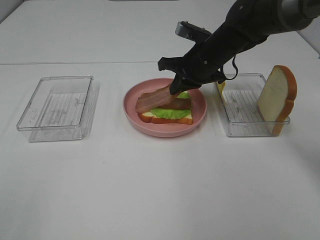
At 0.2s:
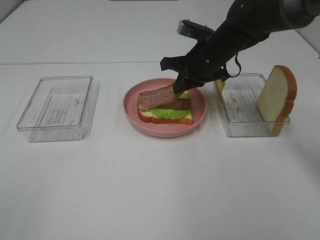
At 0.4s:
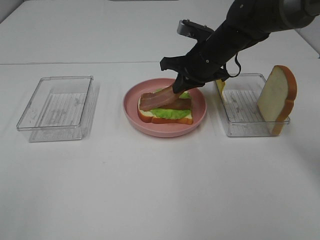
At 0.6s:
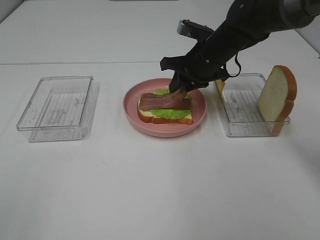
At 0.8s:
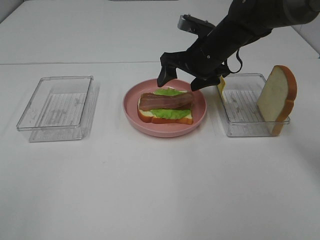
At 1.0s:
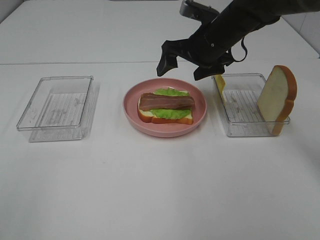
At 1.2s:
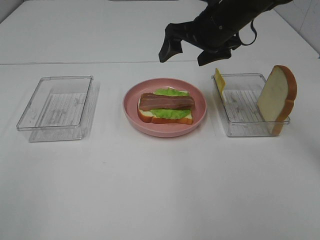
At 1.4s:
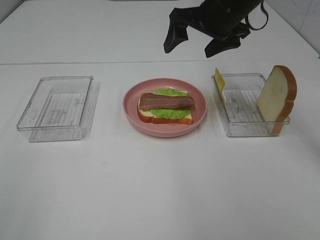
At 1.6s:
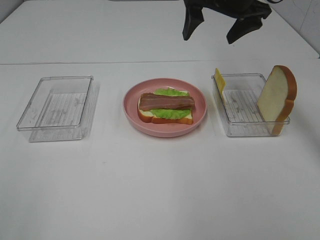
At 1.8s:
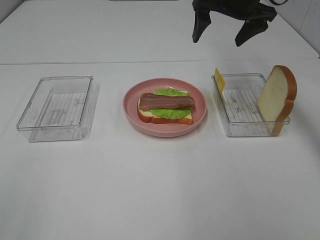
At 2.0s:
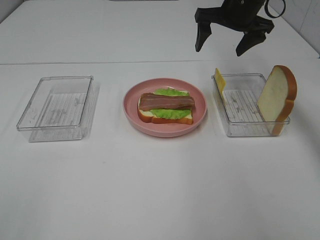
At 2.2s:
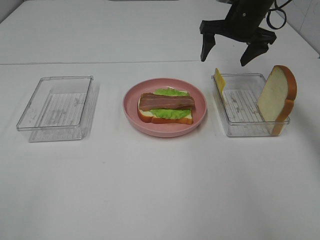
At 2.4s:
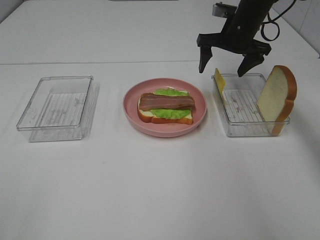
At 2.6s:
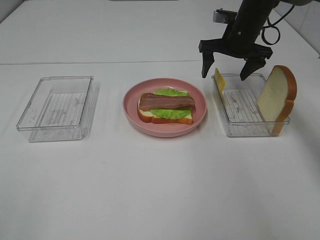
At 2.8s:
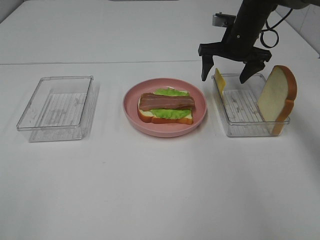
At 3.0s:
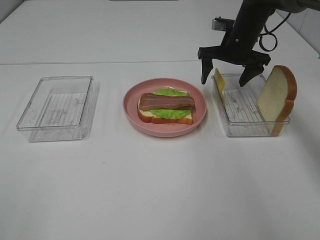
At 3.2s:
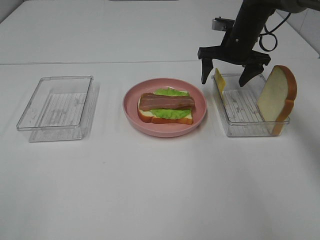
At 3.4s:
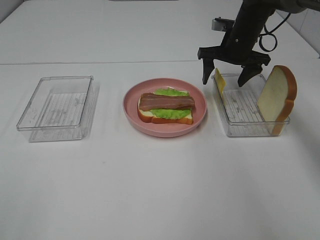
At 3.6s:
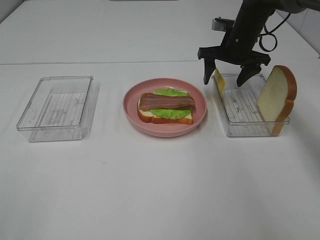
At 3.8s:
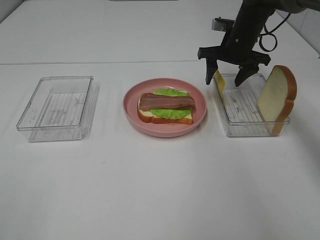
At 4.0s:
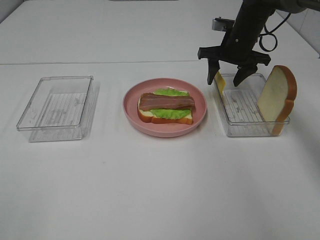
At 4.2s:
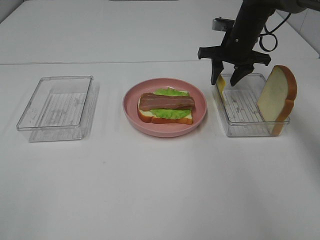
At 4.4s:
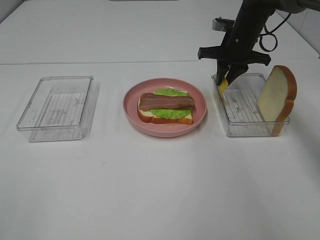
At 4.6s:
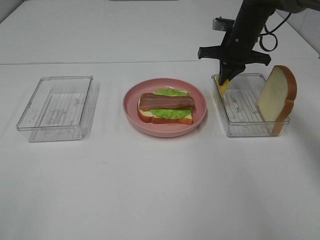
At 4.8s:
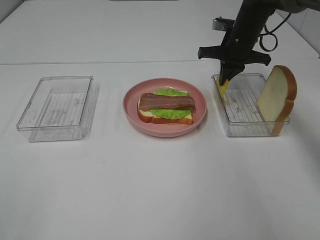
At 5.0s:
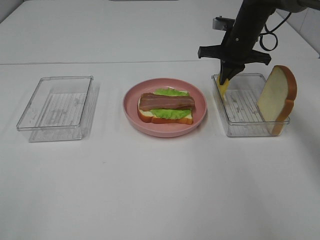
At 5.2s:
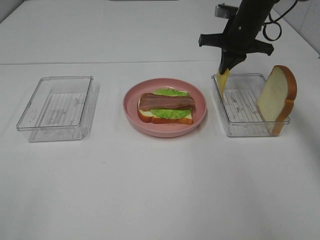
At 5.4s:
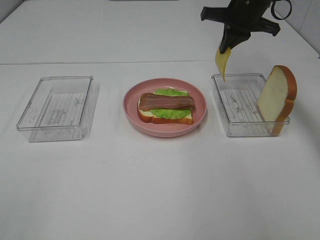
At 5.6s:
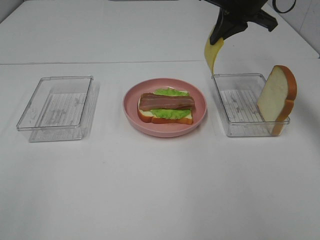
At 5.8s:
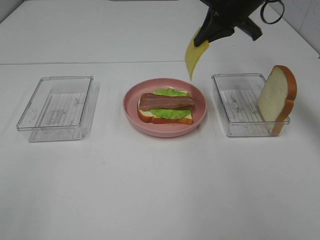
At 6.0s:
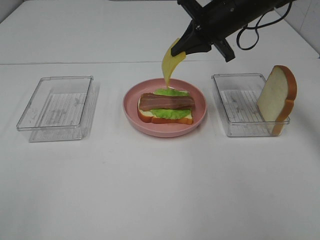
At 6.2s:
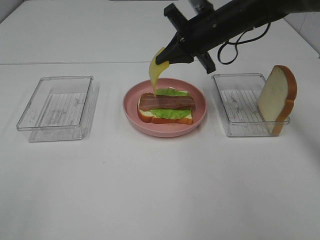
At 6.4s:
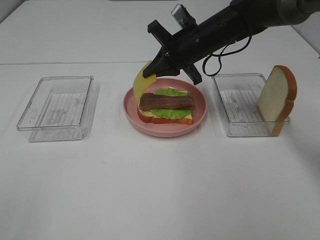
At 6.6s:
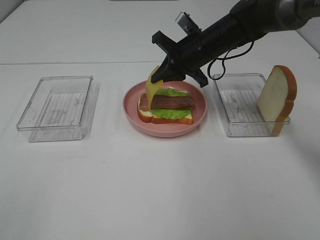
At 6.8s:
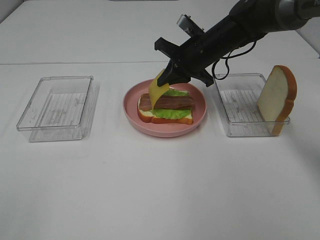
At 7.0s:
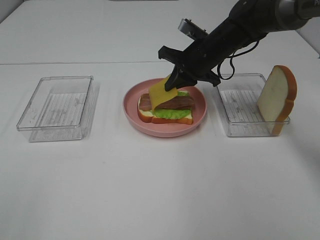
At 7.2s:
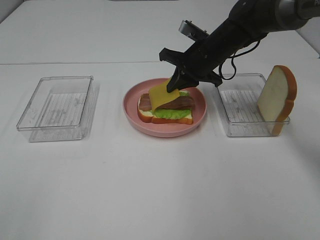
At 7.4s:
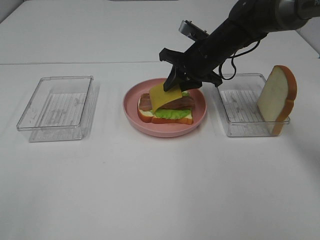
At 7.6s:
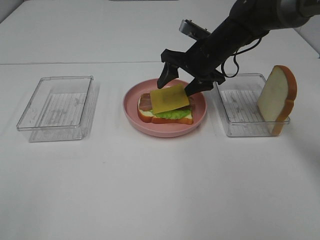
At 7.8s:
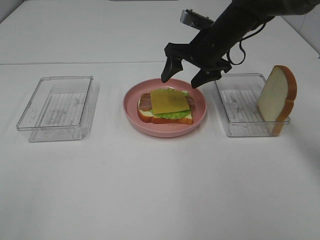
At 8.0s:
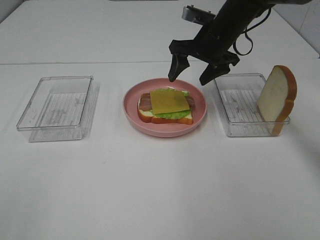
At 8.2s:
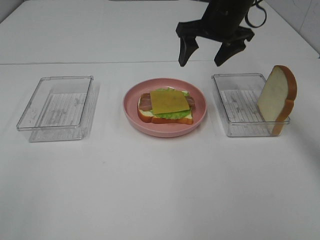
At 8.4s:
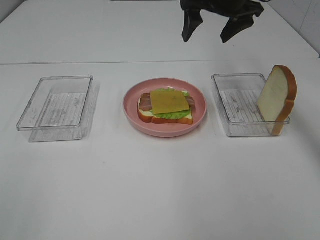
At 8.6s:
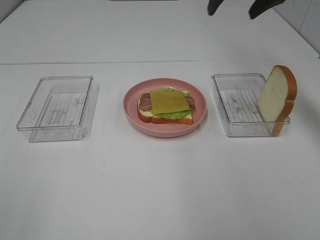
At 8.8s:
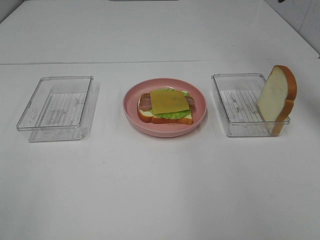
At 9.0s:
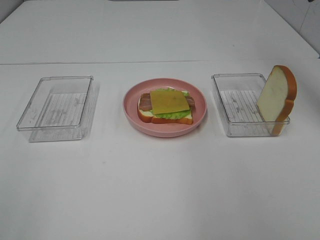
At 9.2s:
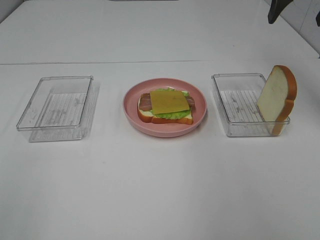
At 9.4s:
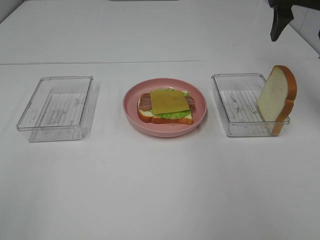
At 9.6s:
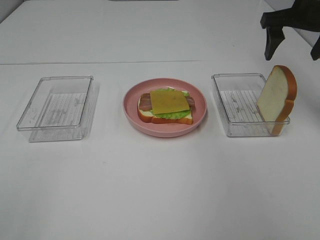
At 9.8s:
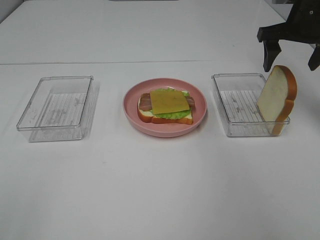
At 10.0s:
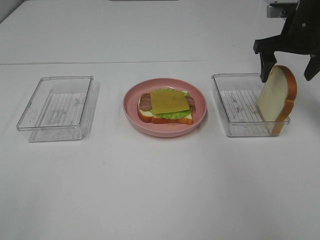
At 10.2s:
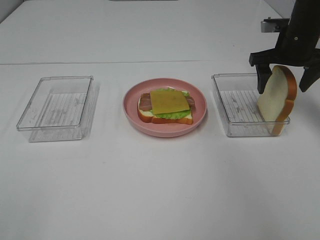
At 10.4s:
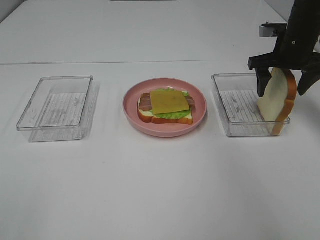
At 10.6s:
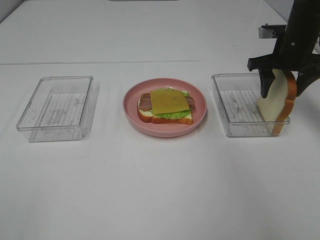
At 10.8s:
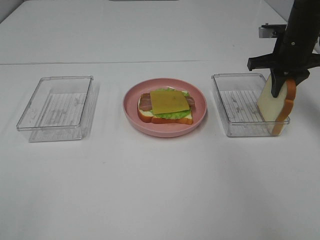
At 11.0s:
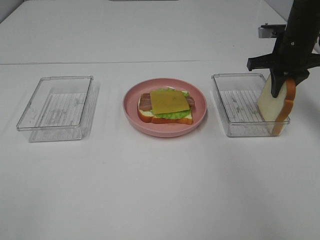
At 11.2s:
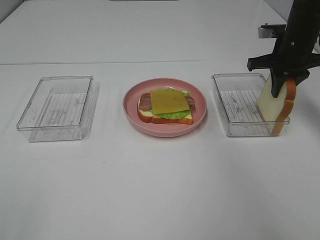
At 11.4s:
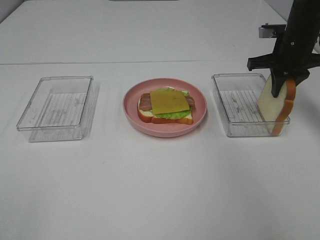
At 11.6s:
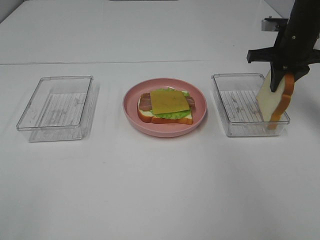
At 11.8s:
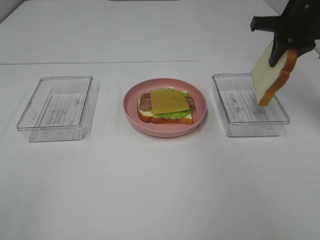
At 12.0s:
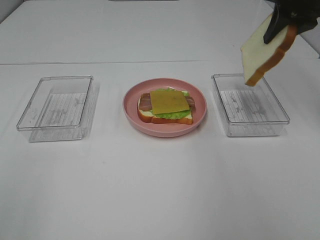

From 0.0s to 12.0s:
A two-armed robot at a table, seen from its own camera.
Task of the whole recording: Make sandwiches.
Step, from 1.0s to 5.0s: Right hand:grab the cheese slice.
Step, from 5.2s to 7.8s: Right hand:place the cheese slice on top of the bacon.
Step, from 8.0s to 11.6s: Right hand:grab the bread slice.
From 0.0s to 1.6s: The right gripper moves upward, roughly 15 cm, and opens its fingers.
From 1.6s to 3.0s: The right gripper heads downward and forward, covering approximately 15 cm.
From 3.0s to 4.4s: The right gripper closes its fingers.
From 4.4s to 6.0s: The right gripper travels upward and backward by roughly 10 cm.
From 6.0s to 7.6s: The right gripper shifts roughly 10 cm downward, and opens up.
From 7.6s to 9.0s: The right gripper moves upward and to the right, approximately 25 cm.
From 9.0s to 10.4s: The right gripper travels downward by roughly 20 cm.
From 10.4s to 12.0s: The right gripper goes roughly 10 cm upward, and closes up.

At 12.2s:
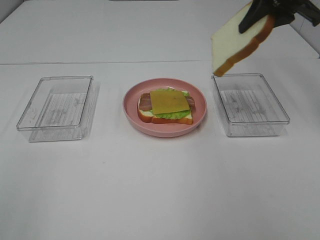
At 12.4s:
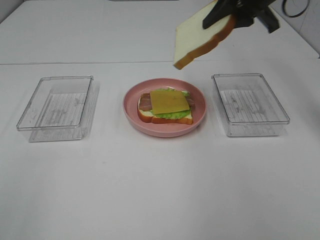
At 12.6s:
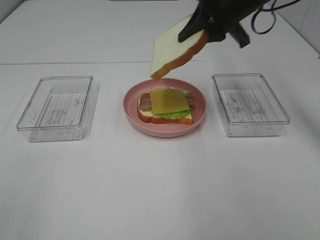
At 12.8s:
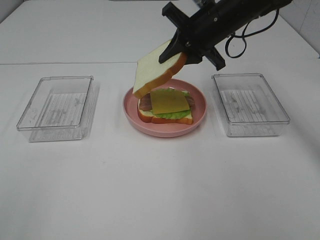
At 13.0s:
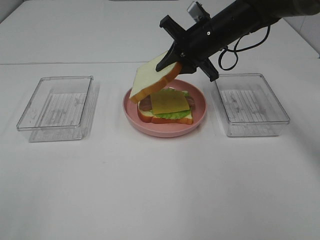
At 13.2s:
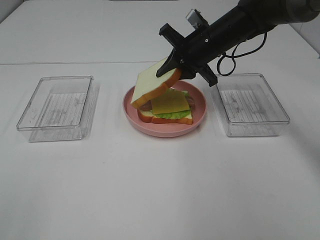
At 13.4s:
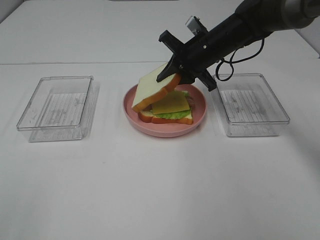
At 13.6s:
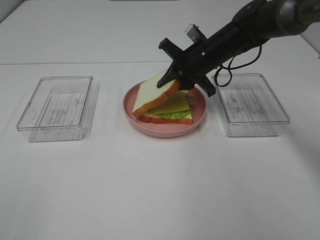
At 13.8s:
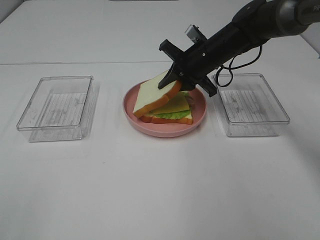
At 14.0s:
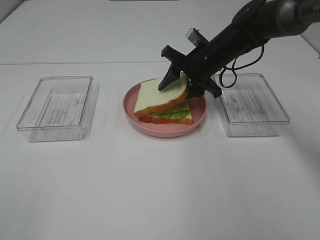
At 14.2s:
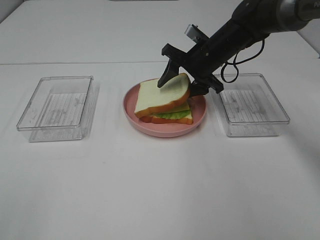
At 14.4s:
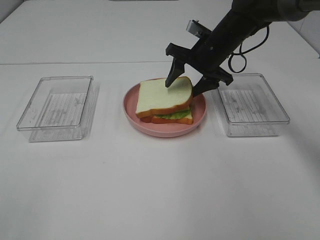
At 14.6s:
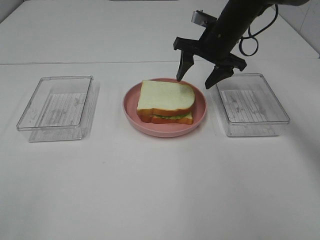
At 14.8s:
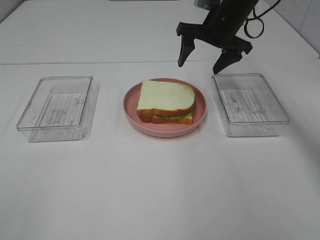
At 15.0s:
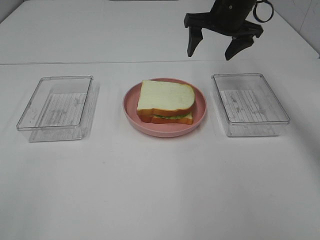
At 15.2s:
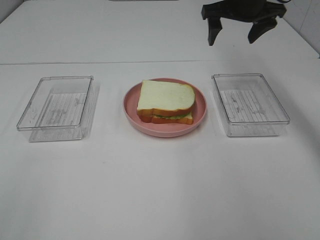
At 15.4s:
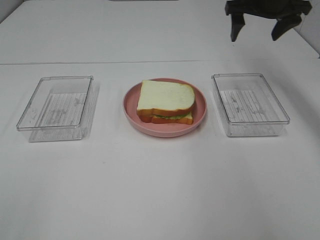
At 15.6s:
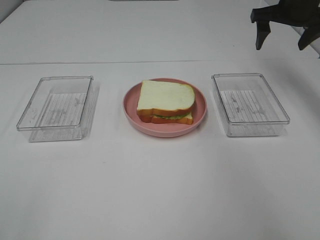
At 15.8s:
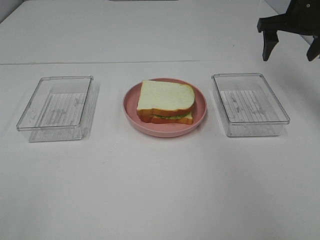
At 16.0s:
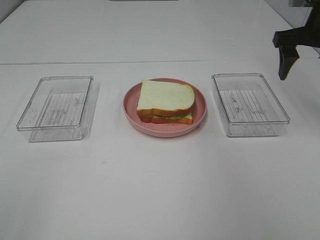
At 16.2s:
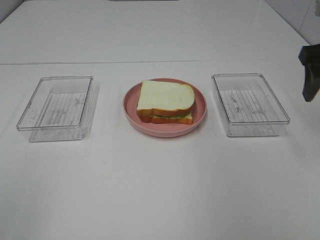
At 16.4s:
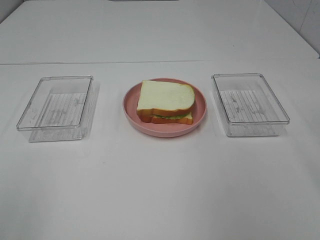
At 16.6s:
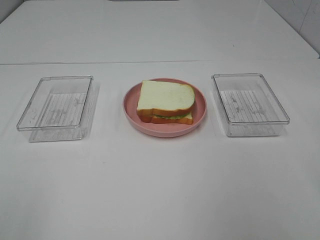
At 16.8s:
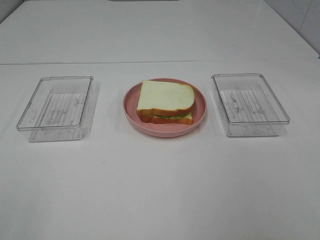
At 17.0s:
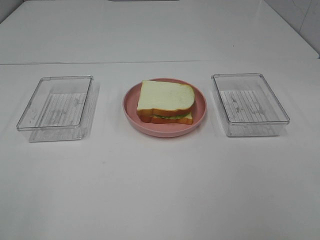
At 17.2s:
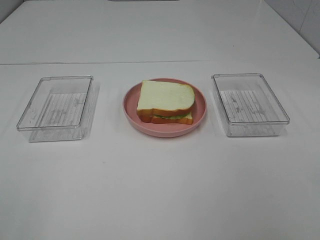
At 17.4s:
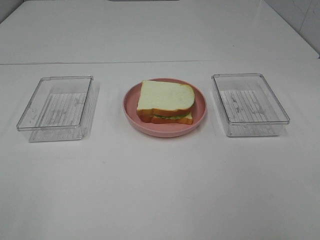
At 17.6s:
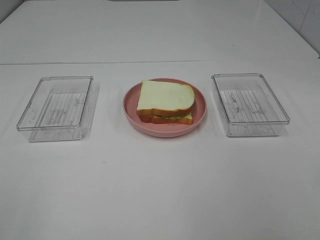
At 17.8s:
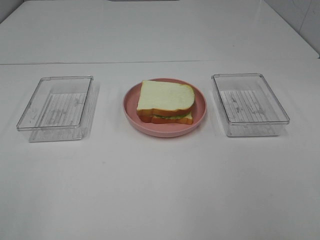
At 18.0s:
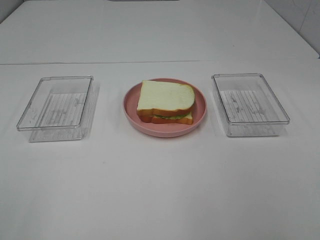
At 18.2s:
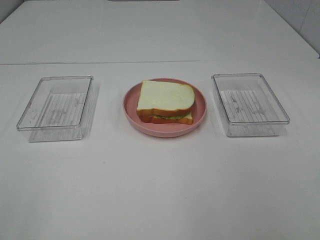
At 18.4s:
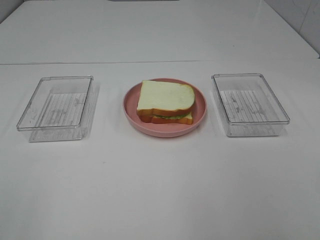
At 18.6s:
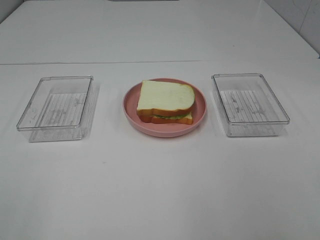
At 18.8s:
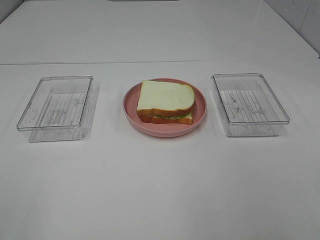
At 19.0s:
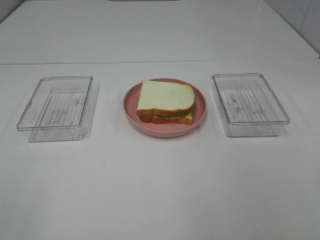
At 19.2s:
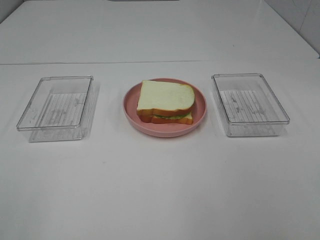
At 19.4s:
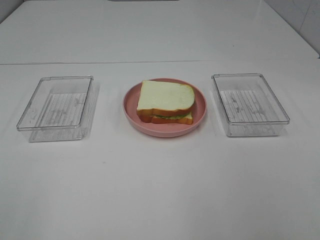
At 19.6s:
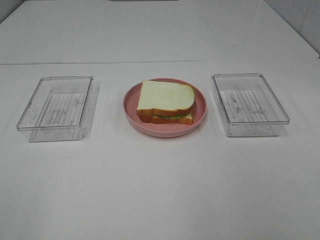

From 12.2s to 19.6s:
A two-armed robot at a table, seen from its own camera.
Task of the whole recording: Make sandwiches.
Step, from 12.2s to 14.6s: Right hand:place the bread slice on the cheese slice.
From 12.2s to 13.6s: The right gripper is displaced downward and to the left by some 20 cm.
From 13.6s to 15.2s: The right gripper moves upward and to the right, approximately 15 cm, and opens up.
From 15.2s to 16.6s: The right gripper goes about 30 cm backward.
From 18.2s to 19.6s: Neither gripper changes place.
